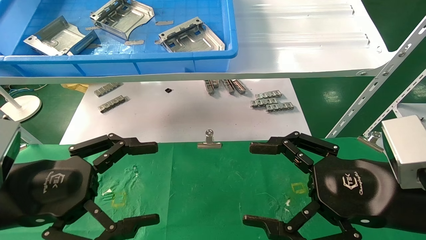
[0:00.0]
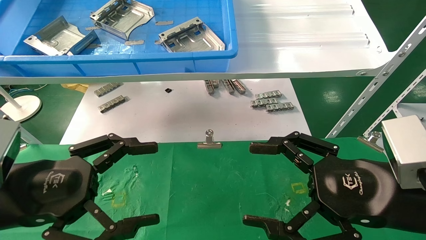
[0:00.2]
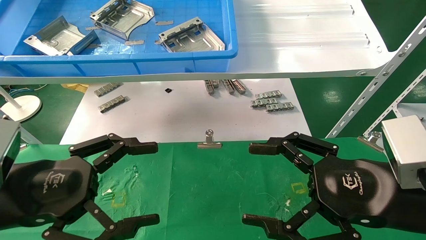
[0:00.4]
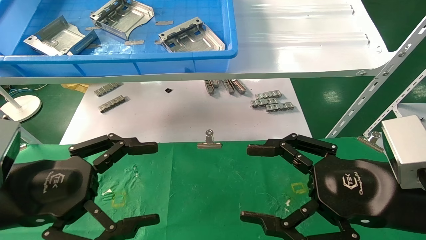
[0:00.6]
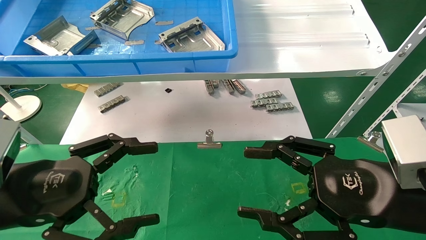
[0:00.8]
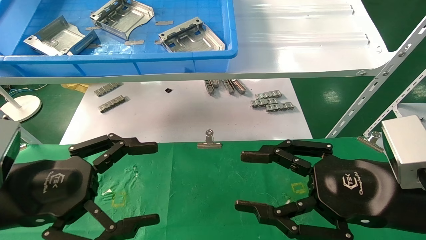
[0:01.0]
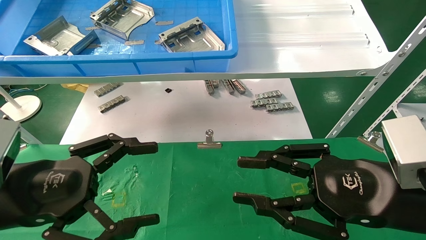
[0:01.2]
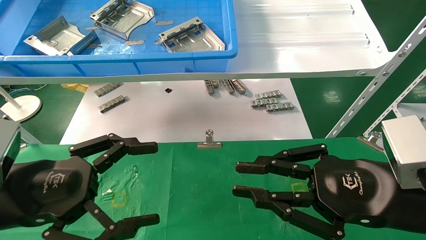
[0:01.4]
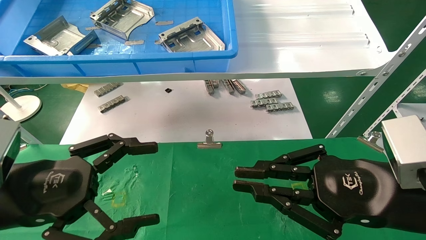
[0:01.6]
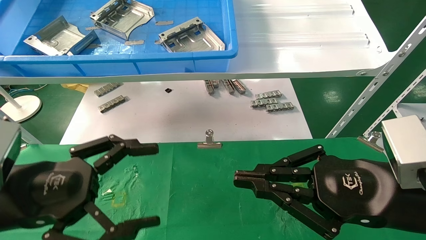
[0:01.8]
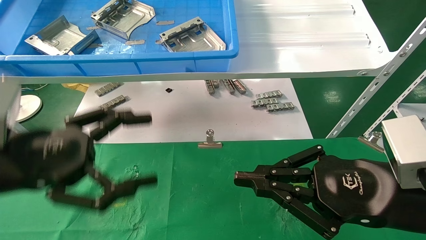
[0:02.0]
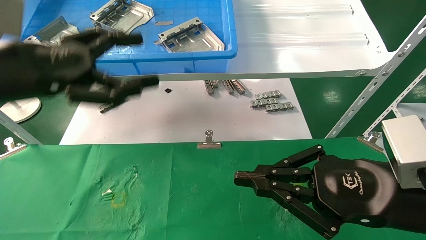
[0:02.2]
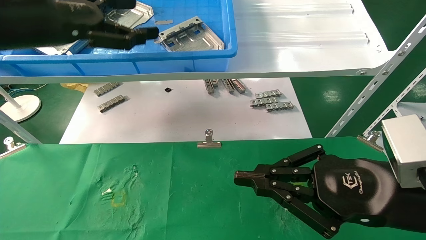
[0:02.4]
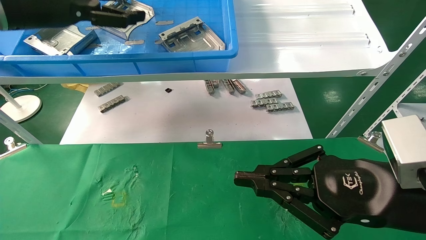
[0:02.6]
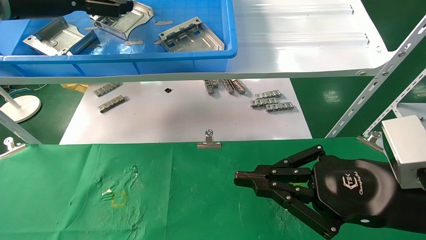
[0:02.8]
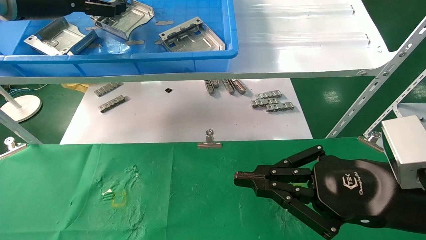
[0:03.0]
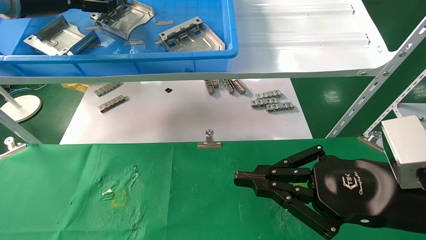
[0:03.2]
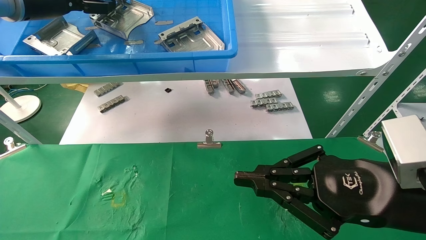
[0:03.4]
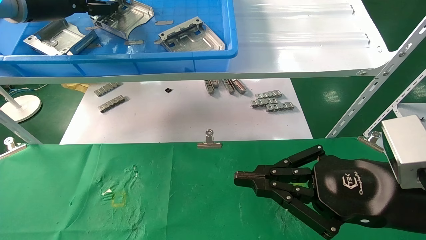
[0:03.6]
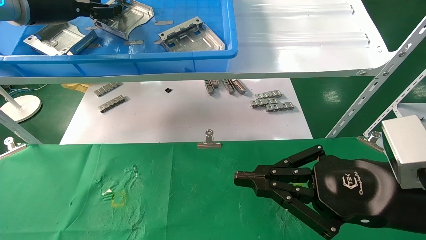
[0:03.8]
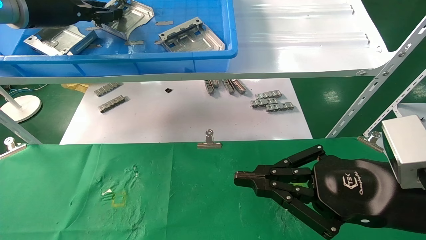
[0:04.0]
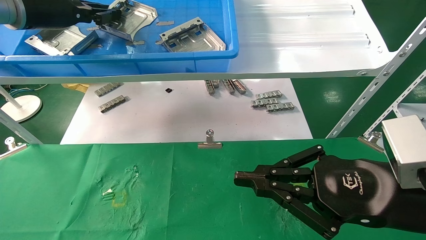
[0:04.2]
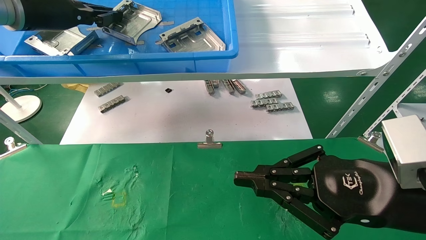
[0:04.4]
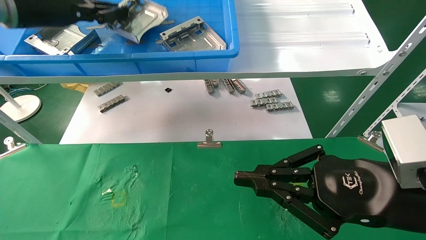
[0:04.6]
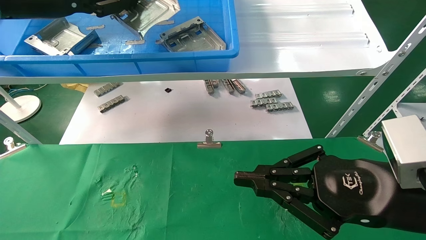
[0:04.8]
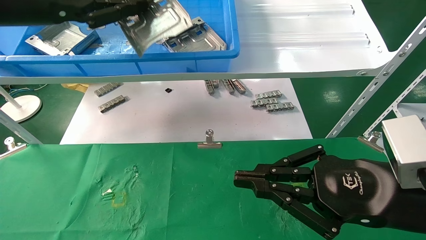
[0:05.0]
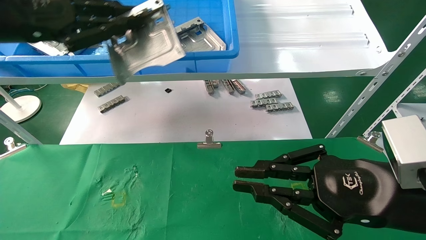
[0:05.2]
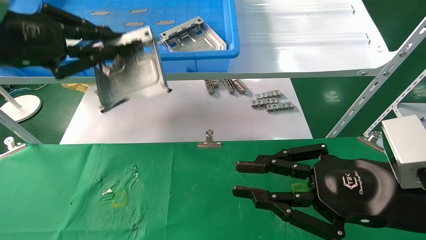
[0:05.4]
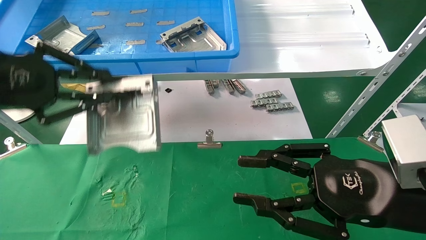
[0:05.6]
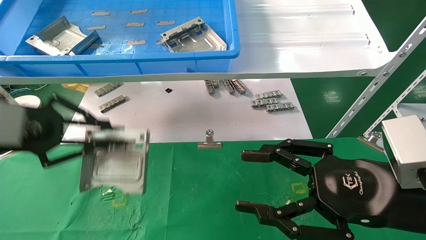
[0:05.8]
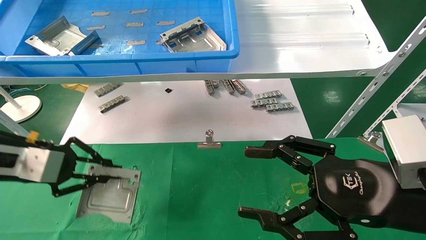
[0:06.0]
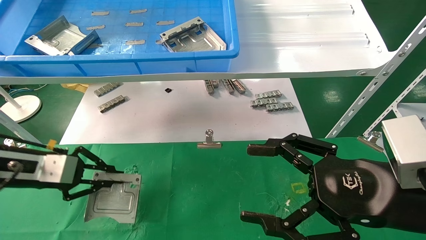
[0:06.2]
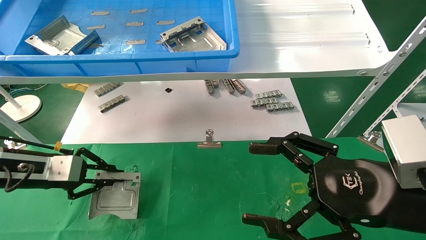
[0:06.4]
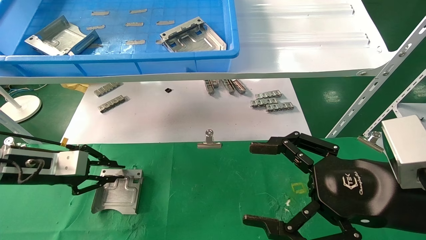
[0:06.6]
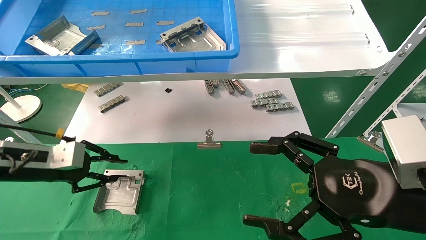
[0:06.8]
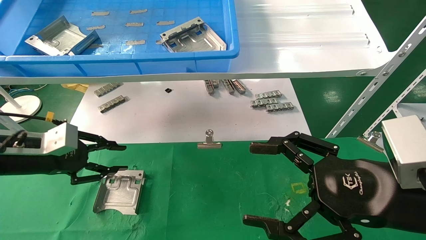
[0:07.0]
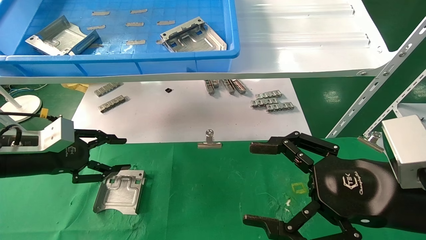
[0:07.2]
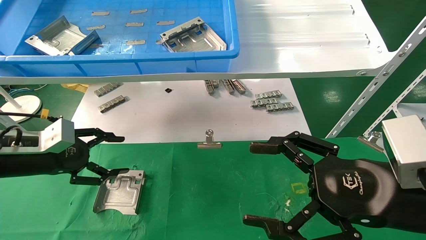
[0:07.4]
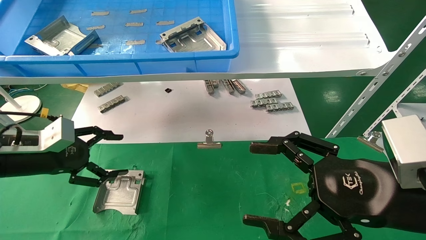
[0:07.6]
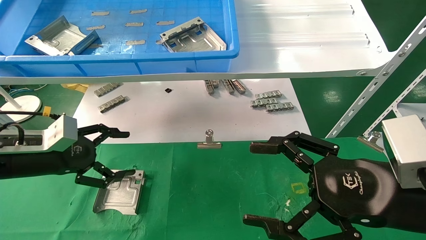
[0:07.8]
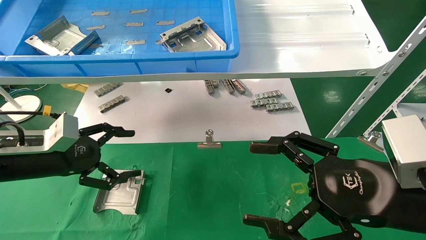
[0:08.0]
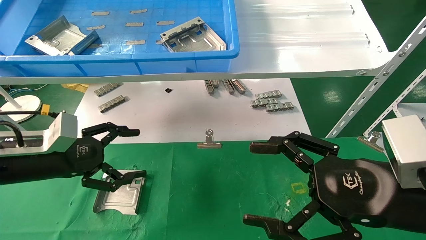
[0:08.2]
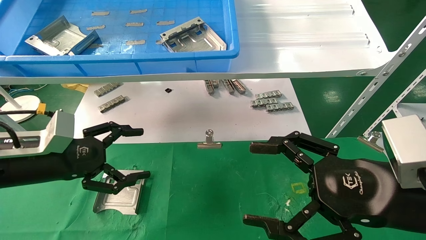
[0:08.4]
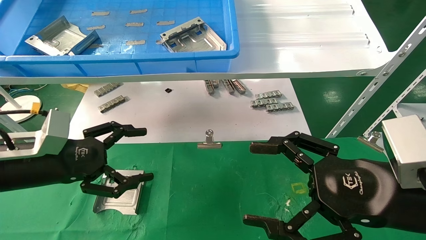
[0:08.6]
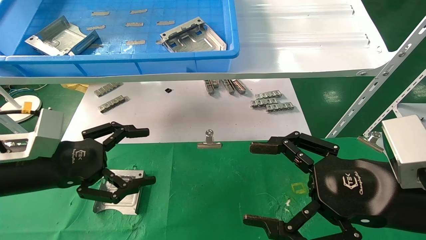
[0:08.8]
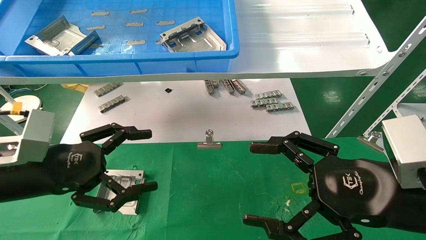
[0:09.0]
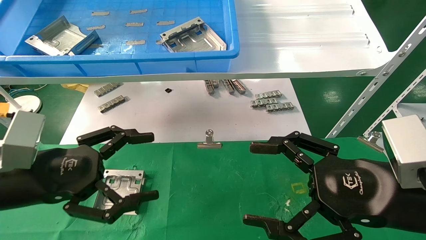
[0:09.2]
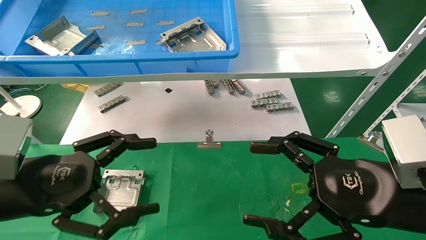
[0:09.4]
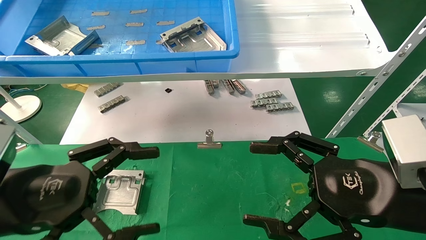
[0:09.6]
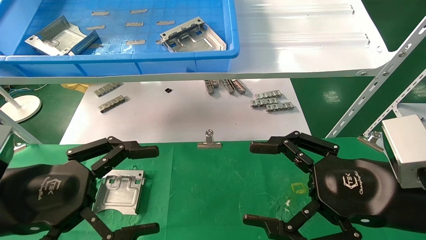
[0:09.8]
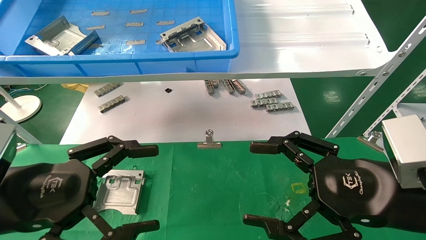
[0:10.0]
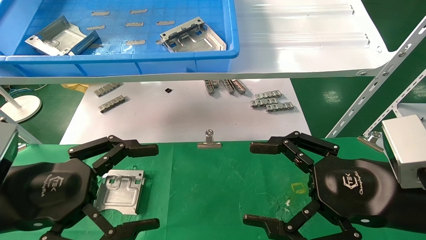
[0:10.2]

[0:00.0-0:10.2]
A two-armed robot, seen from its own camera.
Task of the whole recording: use the mechanical arm to pick up the parts and place them on the table.
Step, 0:02.2 to 0:04.4: Pick up the hard drive bracket from the feeding area.
Step, 0:04.6 to 0:06.8: Place the hard drive bracket into the box.
0:00.0 to 0:01.4: The right gripper closes its fingers.
0:01.4 to 0:03.0: The left gripper travels upward and forward by some 30 cm.
0:03.0 to 0:04.4: The left gripper closes up.
0:04.4 to 0:05.8: The right gripper opens its fingers. The left gripper moves downward and backward, roughly 20 cm.
0:05.8 to 0:07.2: The left gripper goes some 10 cm downward and forward, and opens its fingers. The right gripper opens.
0:07.2 to 0:08.8: The left gripper shifts about 10 cm to the right and backward, and opens up.
0:08.8 to 0:10.2: The left gripper shifts some 10 cm backward.
